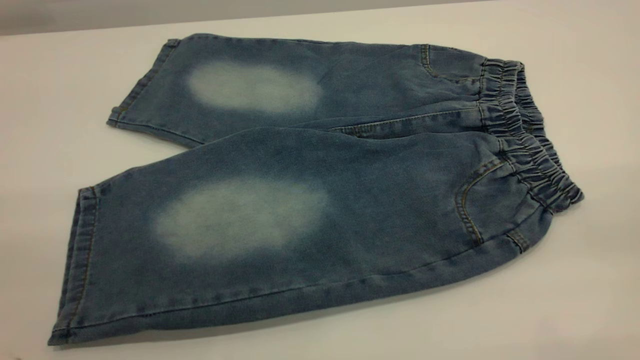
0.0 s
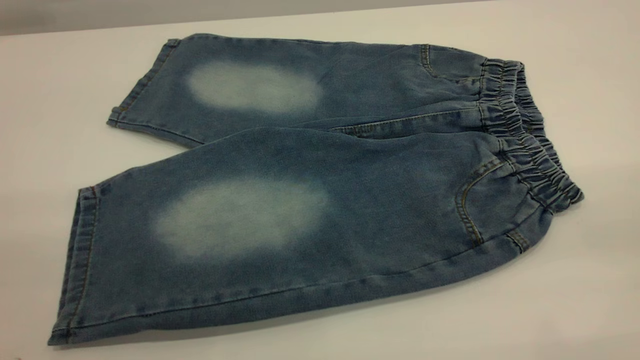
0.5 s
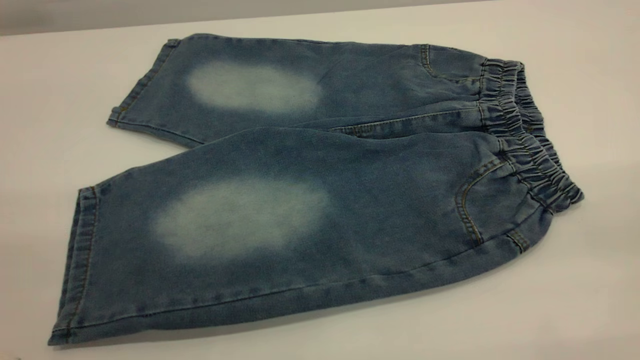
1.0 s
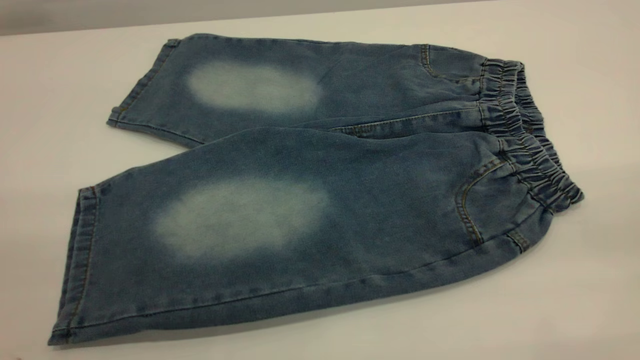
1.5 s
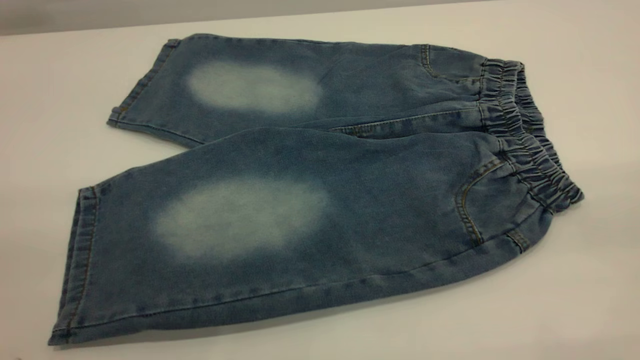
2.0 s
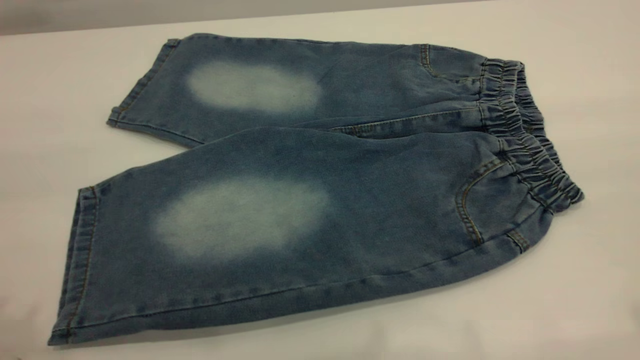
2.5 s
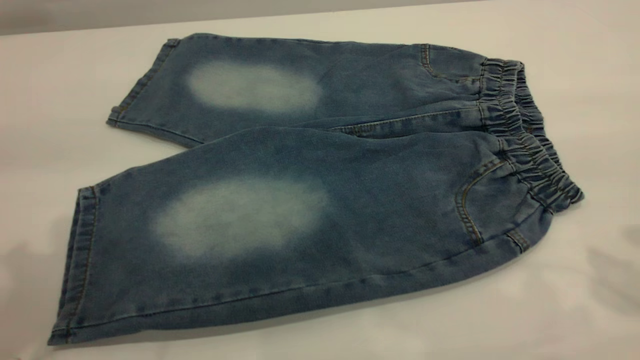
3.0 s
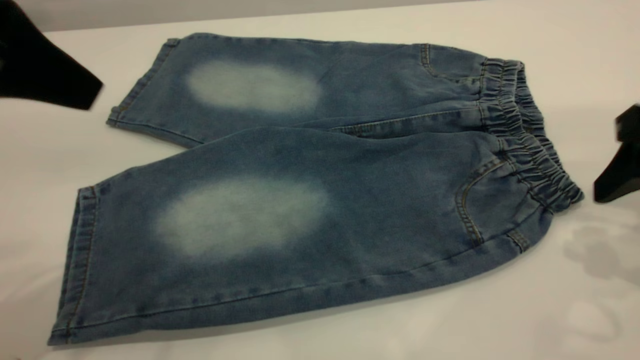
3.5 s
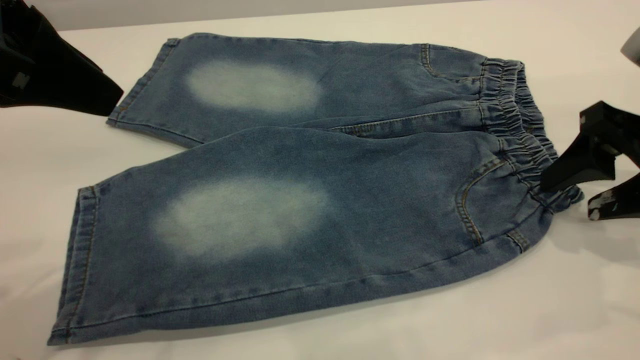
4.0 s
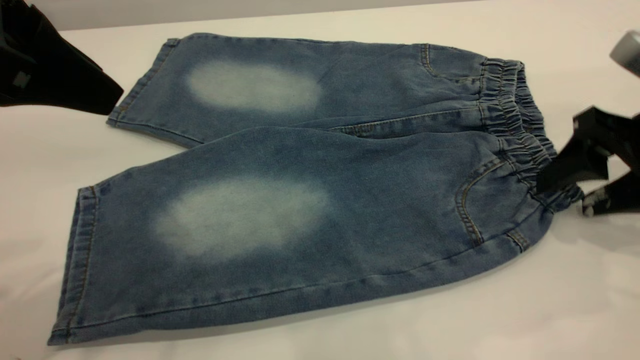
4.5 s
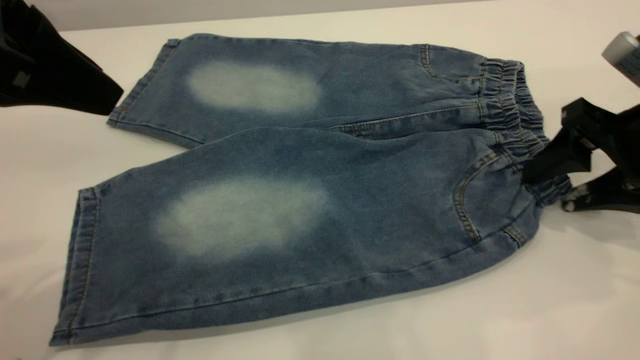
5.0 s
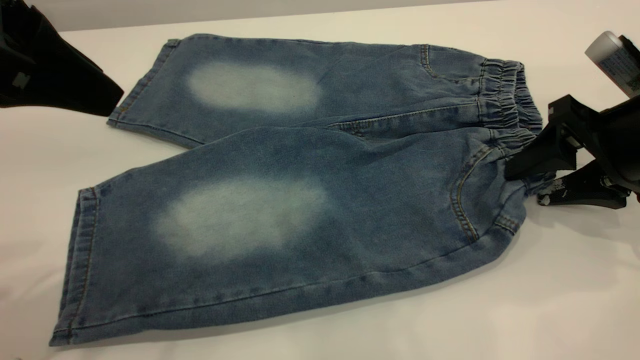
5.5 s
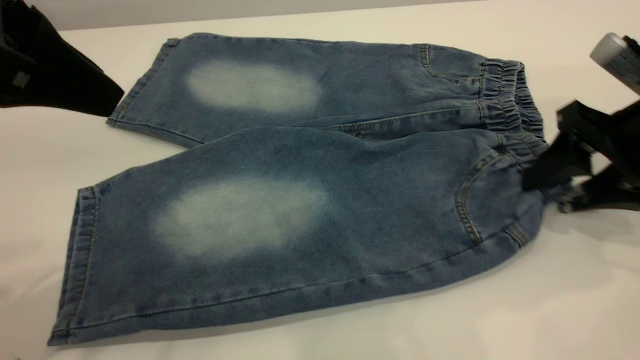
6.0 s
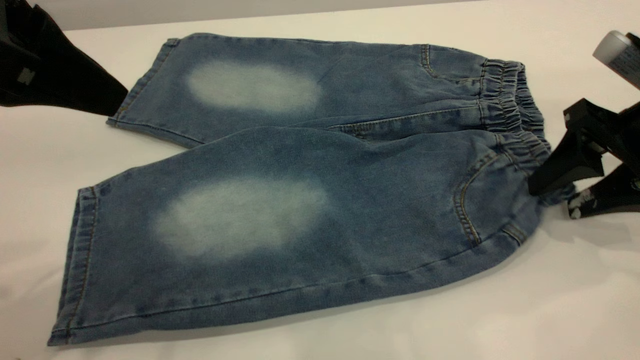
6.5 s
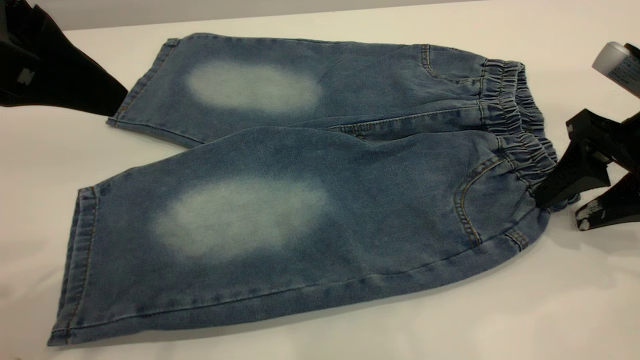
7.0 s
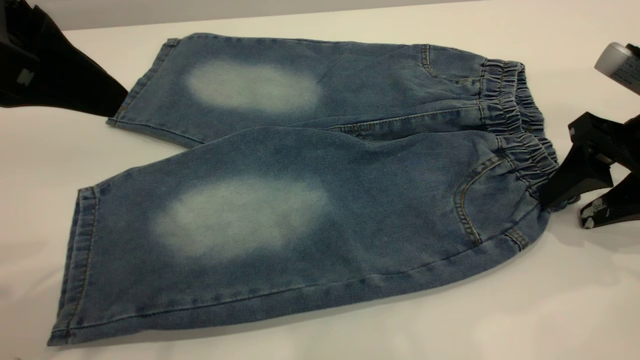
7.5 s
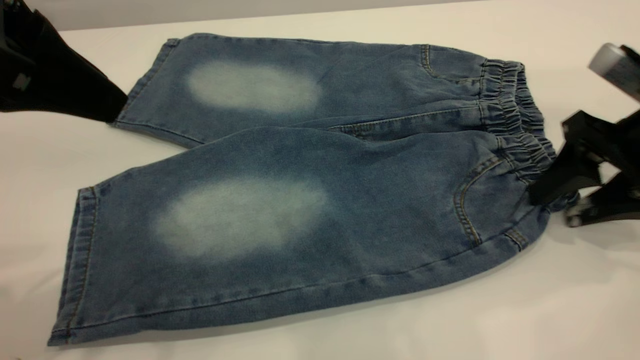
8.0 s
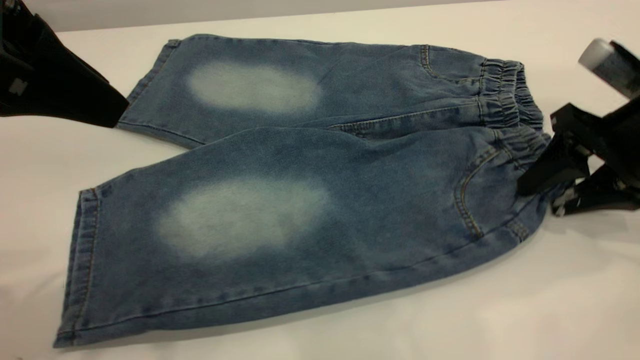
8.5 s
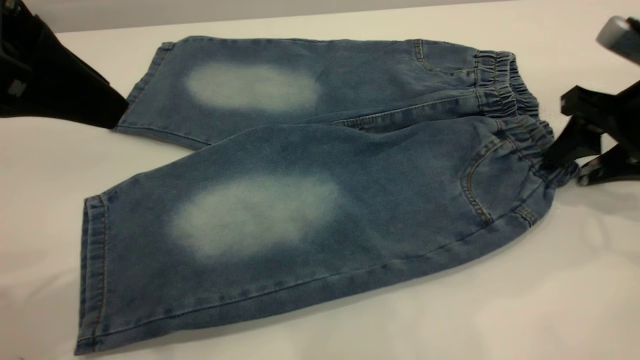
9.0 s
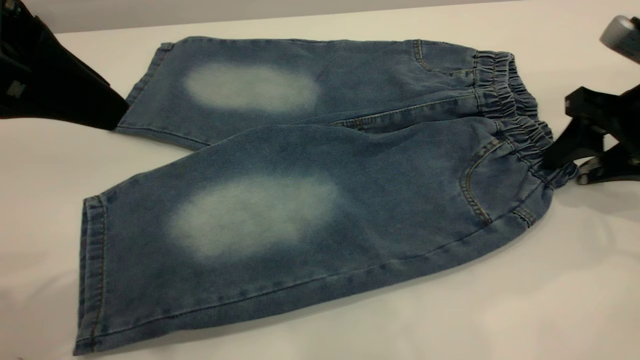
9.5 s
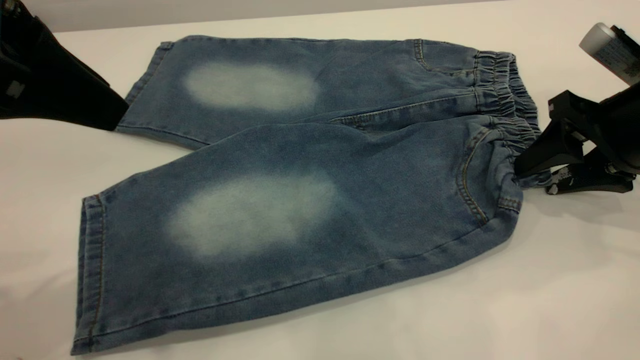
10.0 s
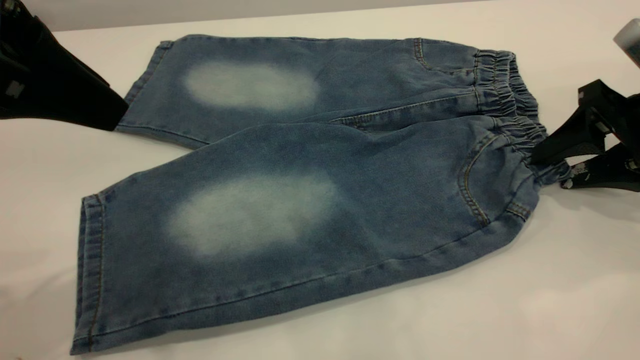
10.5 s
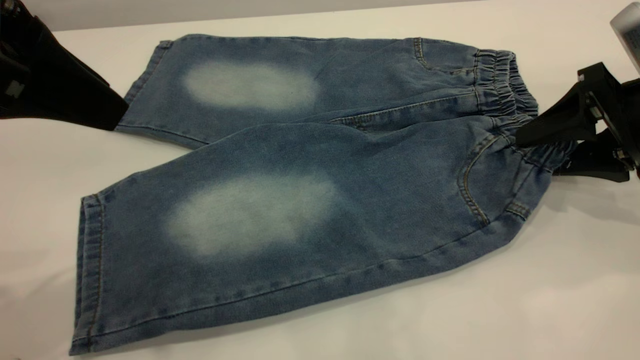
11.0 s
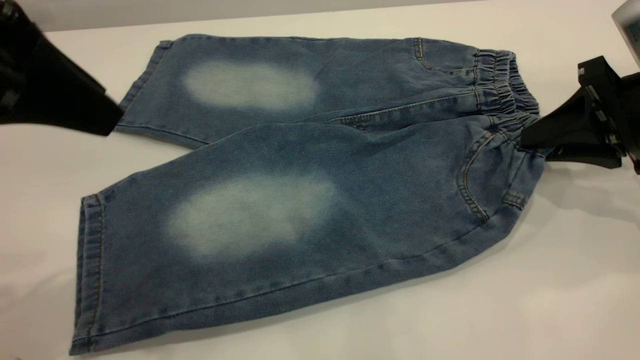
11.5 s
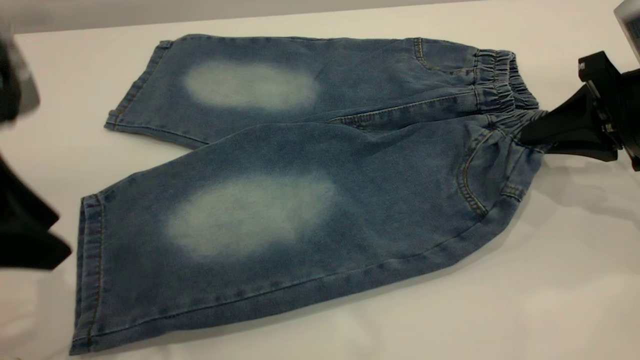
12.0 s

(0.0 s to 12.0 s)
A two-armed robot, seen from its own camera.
2.0 s - 4.0 s: The left gripper is displaced forward by roughly 20 cm; the right gripper travels forward and downward by about 35 cm.
4.0 s - 10.0 s: The grippers stay close to where they were, moving slightly.
10.0 s - 12.0 s: The left gripper moves downward, about 5 cm, while the right gripper closes.

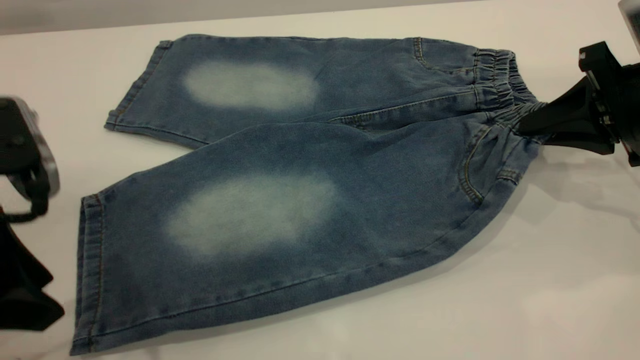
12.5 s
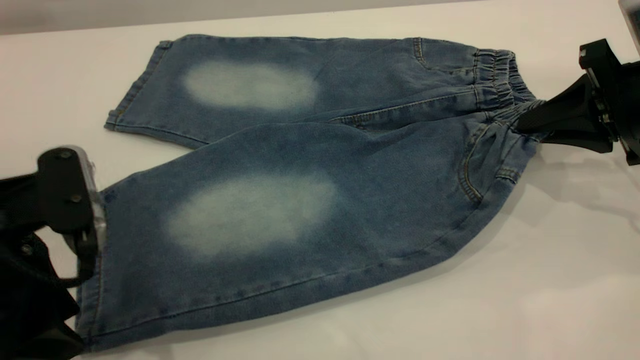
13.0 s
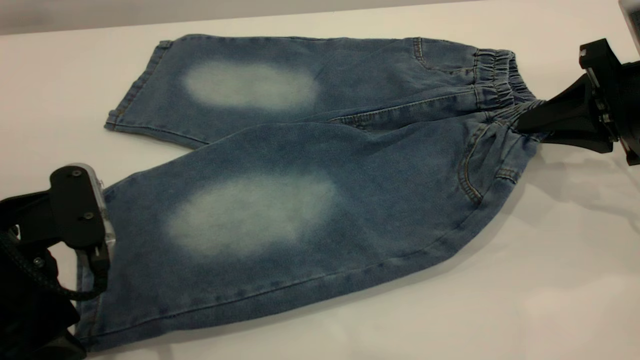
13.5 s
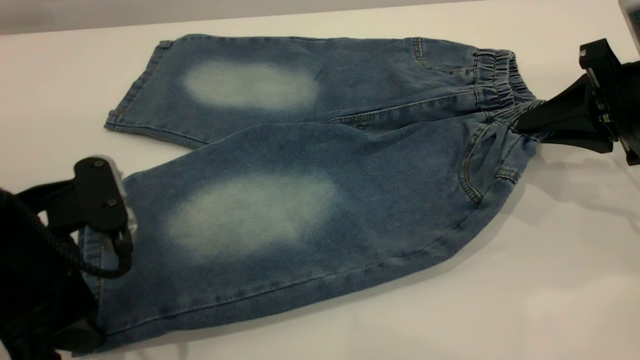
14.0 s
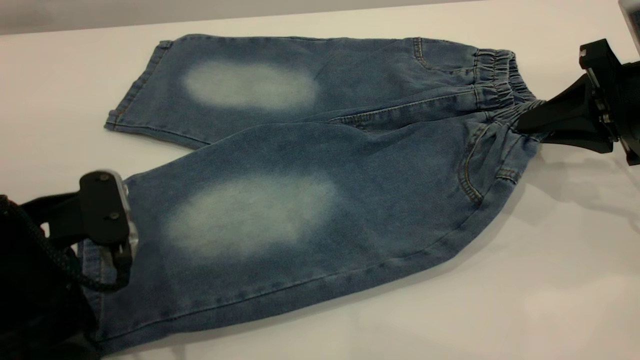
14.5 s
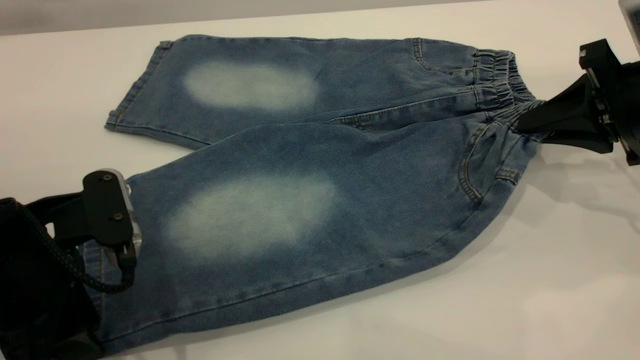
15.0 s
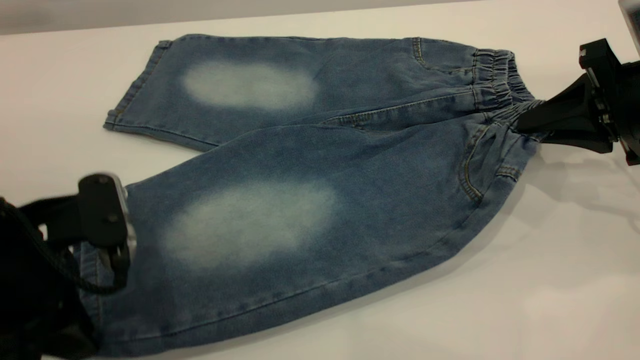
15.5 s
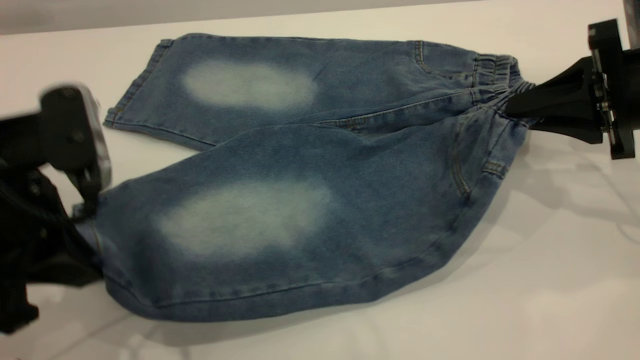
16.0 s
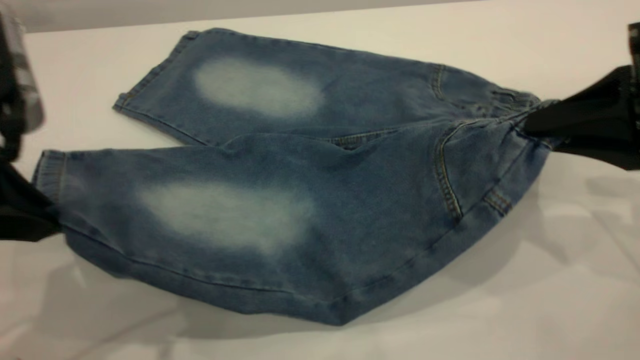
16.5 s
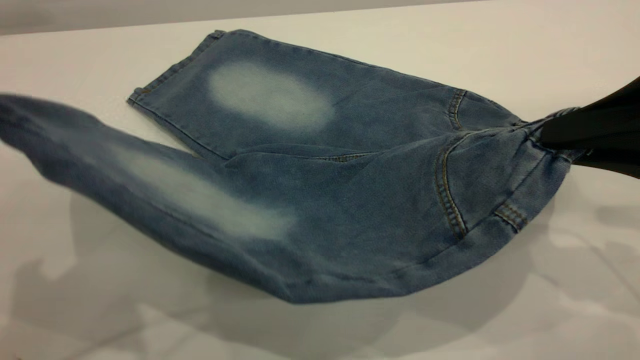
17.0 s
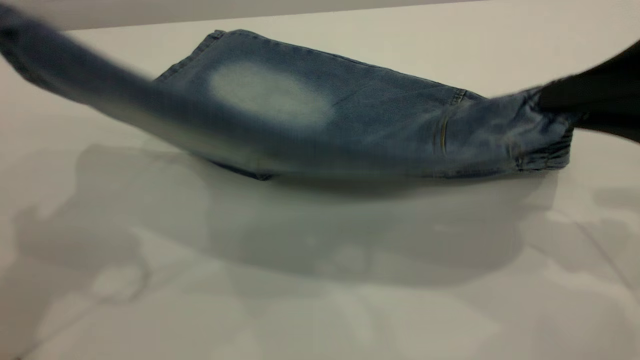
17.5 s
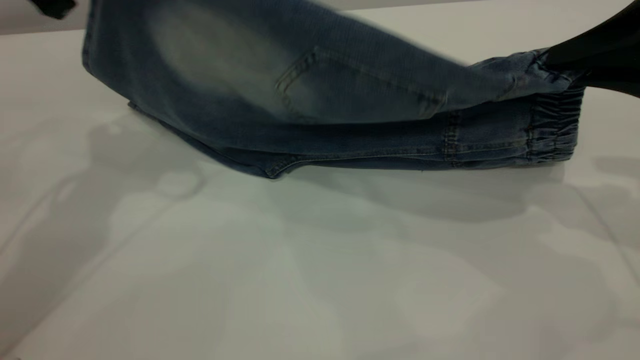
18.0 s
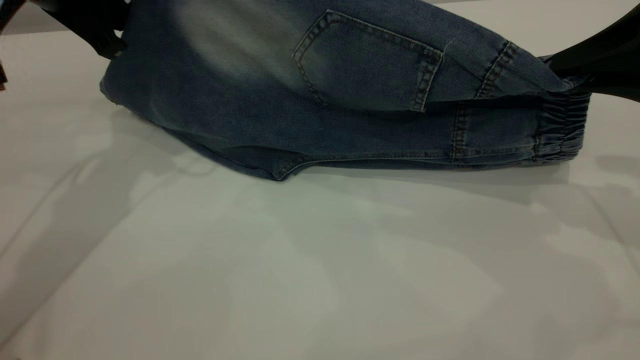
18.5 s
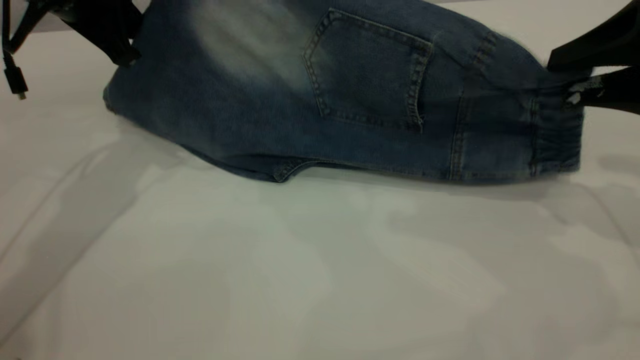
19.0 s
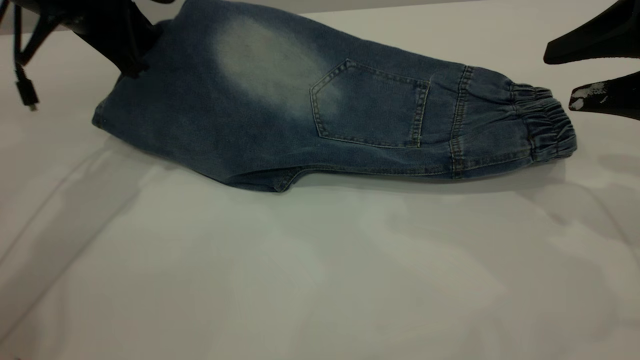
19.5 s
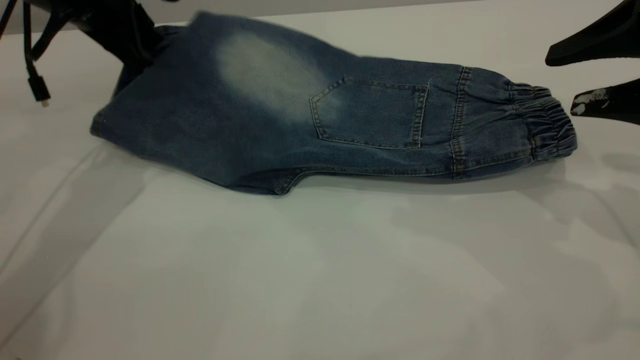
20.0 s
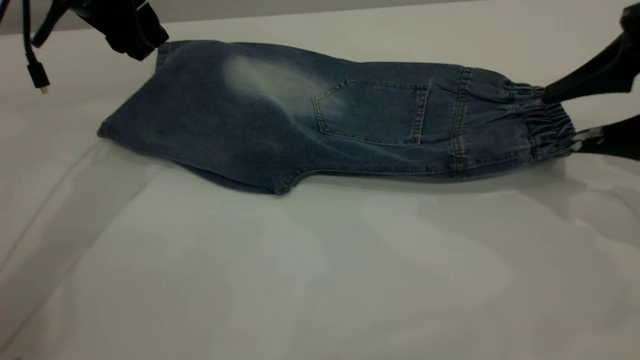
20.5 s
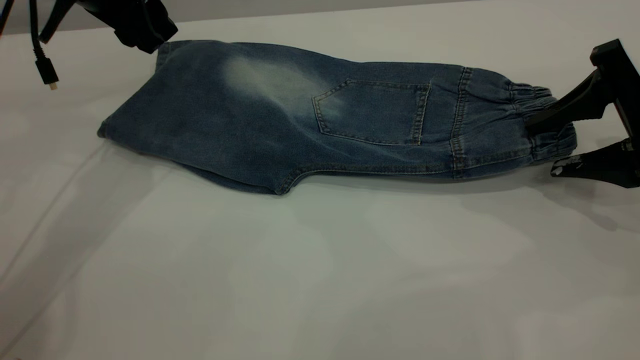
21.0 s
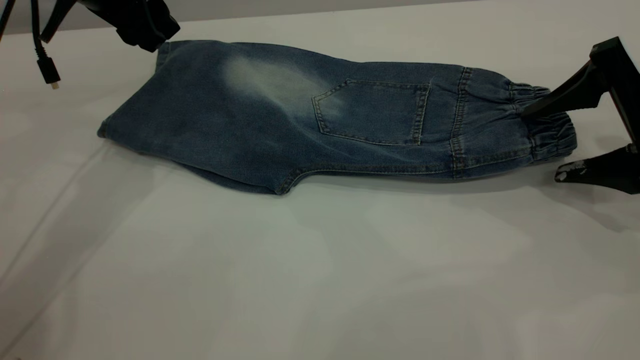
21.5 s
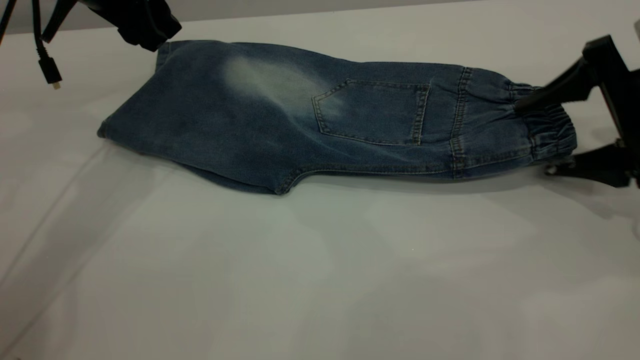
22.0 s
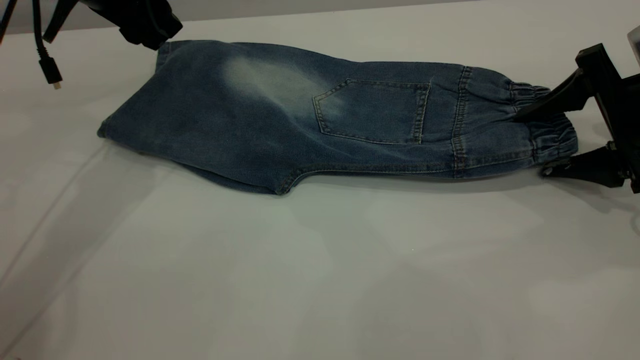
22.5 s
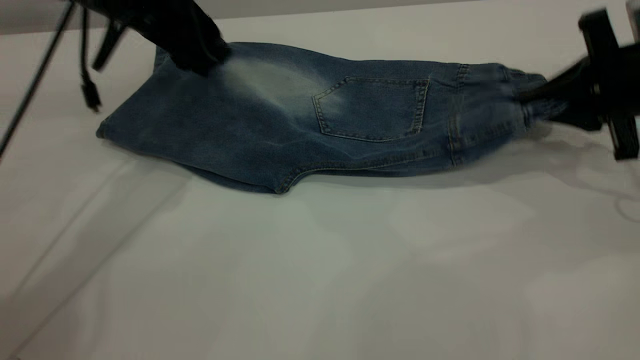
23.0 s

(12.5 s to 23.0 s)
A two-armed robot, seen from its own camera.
Step, 12.5 s - 20.5 s: Fold the bottom of the pants upward.
12.5 s - 14.5 s: The left gripper is displaced downward by approximately 5 cm.
14.5 s - 16.5 s: The right gripper heads backward, covering approximately 10 cm, while the left gripper travels upward by about 10 cm, and closes its fingers.
16.5 s - 19.0 s: The right gripper opens up. The left gripper is displaced forward by about 20 cm.
19.0 s - 21.0 s: The right gripper heads downward, covering some 5 cm, while the left gripper opens up.
21.0 s - 23.0 s: The left gripper moves some 5 cm. The right gripper closes.
